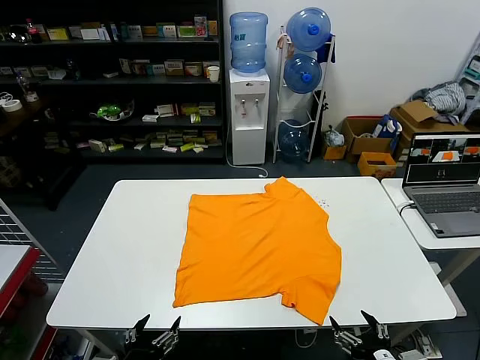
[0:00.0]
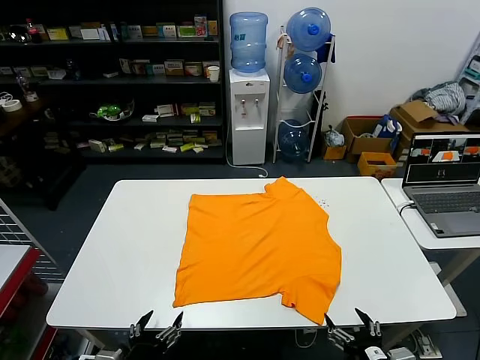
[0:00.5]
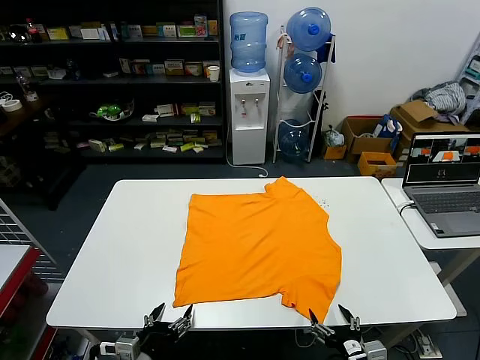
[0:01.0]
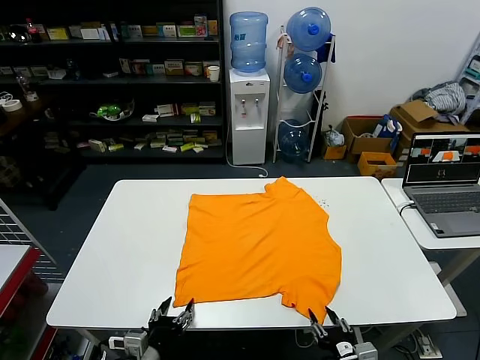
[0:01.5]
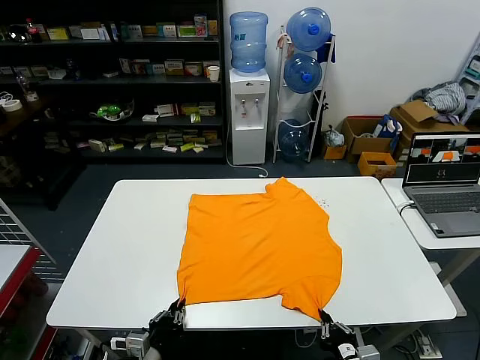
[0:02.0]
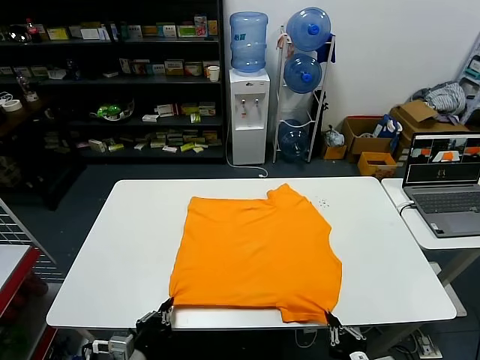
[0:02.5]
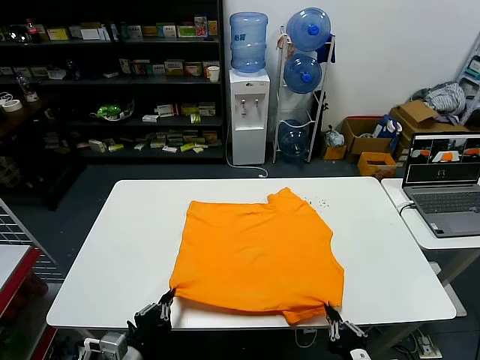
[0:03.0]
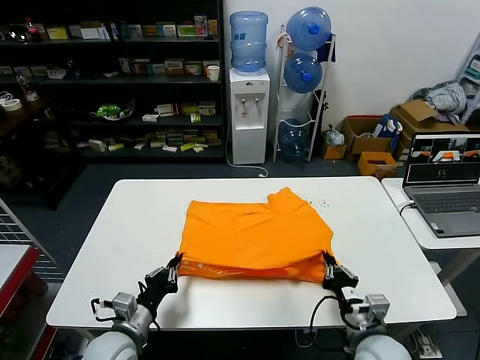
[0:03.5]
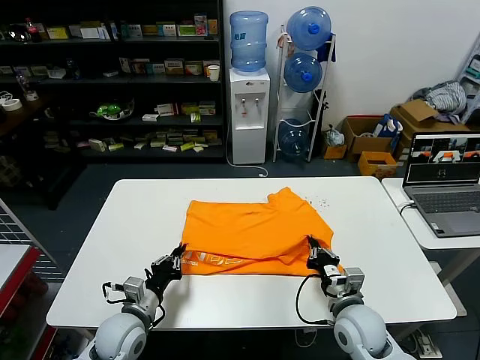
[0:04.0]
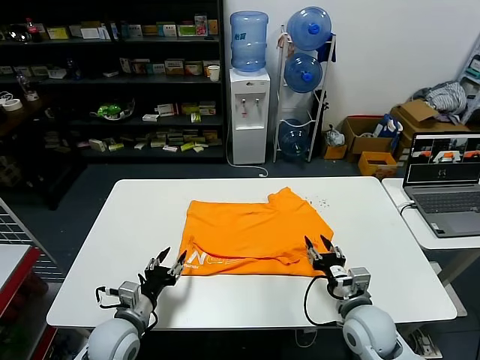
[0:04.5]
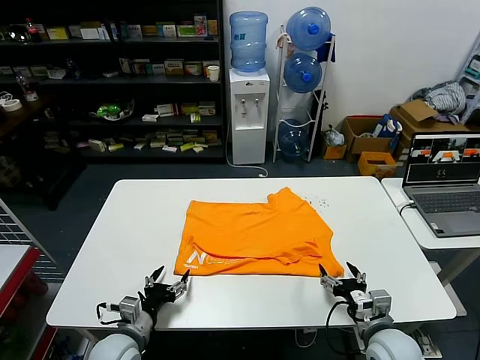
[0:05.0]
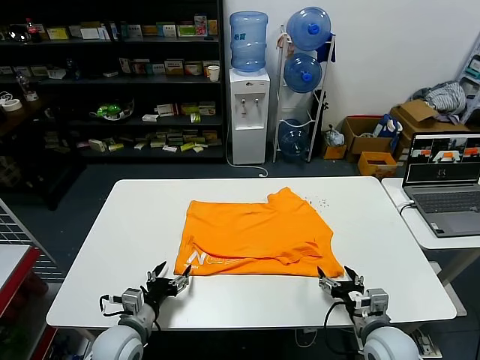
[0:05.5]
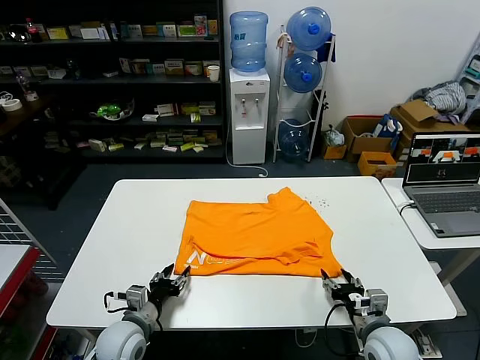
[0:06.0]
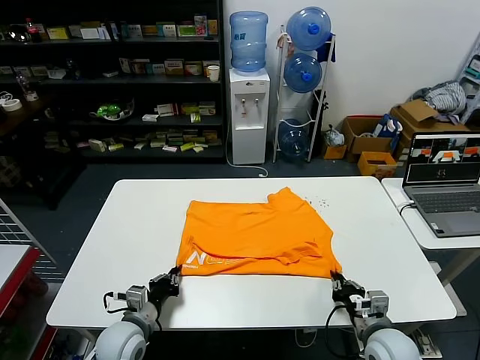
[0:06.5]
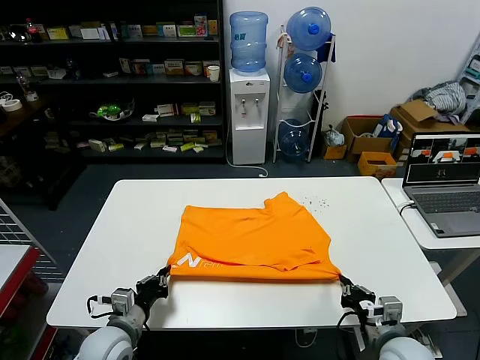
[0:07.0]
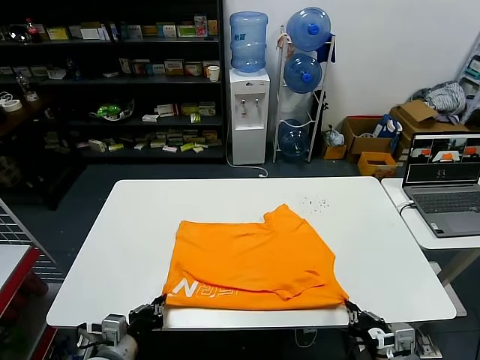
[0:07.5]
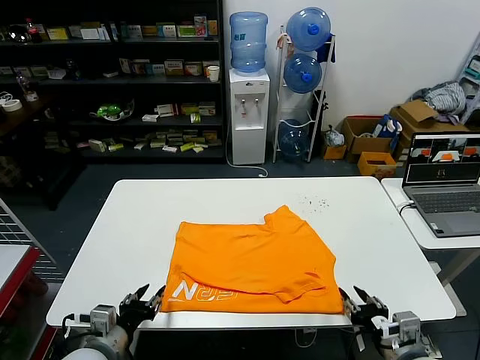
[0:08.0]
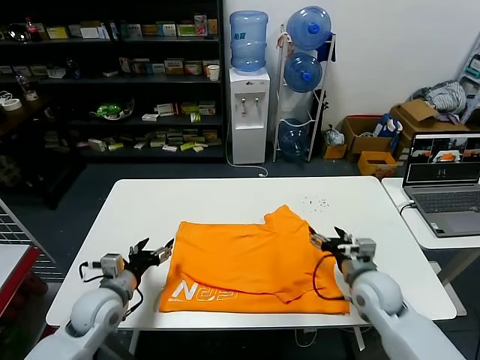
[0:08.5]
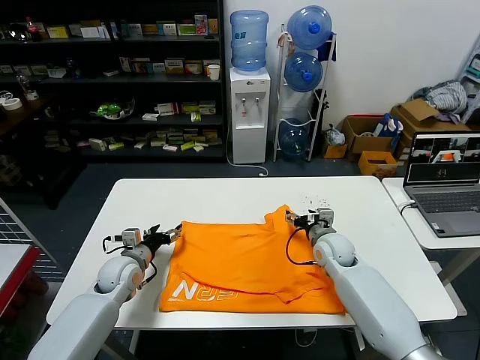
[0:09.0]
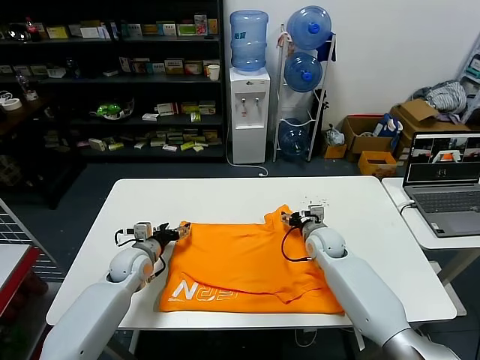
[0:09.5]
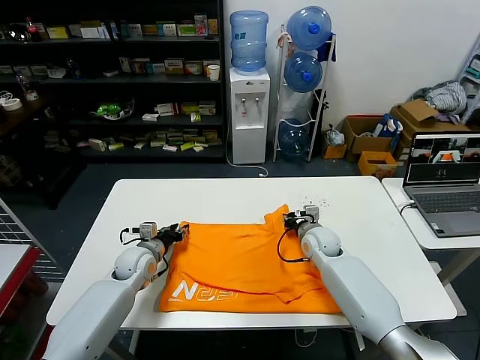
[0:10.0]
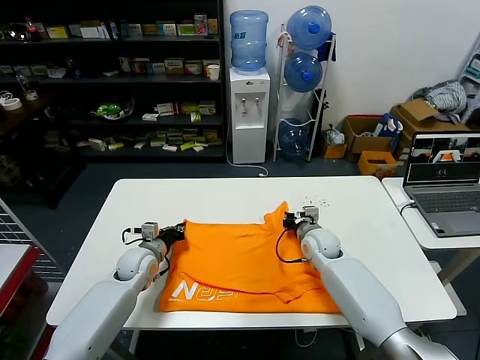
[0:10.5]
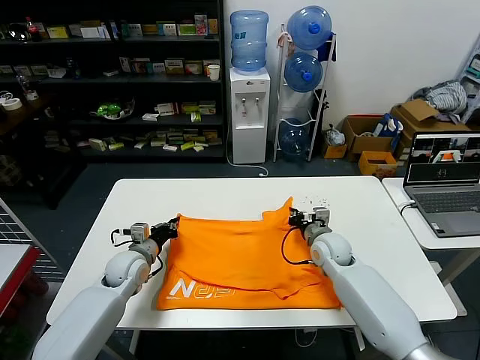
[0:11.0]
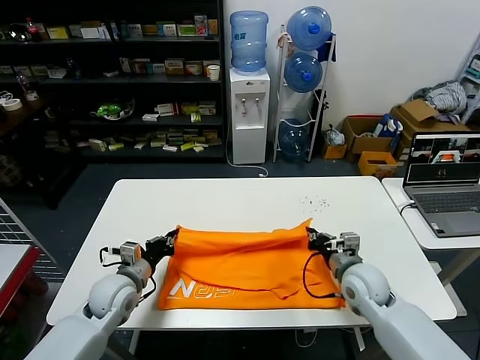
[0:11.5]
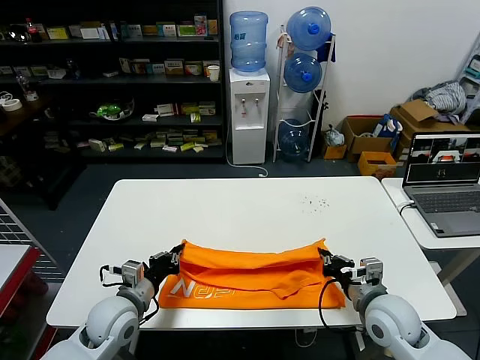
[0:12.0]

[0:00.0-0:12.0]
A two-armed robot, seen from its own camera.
Task of the whole recording: fold and organize the clothes.
Step, 0:00.0 to 0:02.0: use both grippers simultaneously to clamp the lower edge of the clothing fabric.
Step, 0:02.5 to 0:04.0: use both grippers to drag the lower edge of the fabric forward and fold it over the upper edge.
Step, 0:04.5 to 0:07.5: Drag the clothes downward with both gripper.
Step, 0:08.0 to 0:10.0: use both grippers simultaneously to clamp the upper edge of the clothing fabric.
0:02.0 to 0:04.0: The grippers both shift forward by approximately 15 cm.
0:04.0 to 0:06.0: The left gripper opens, while the right gripper heads to the right, covering about 5 cm, and opens.
0:06.0 to 0:08.0: The grippers both shift upward and backward by about 10 cm. The right gripper closes, then reopens, while the left gripper closes, then opens again.
0:08.0 to 0:10.0: Both grippers move forward, some 30 cm. The right gripper opens, then closes again, while the left gripper opens and closes again.
0:10.0 to 0:12.0: The grippers both shift backward by approximately 20 cm. The left gripper closes its fingers.

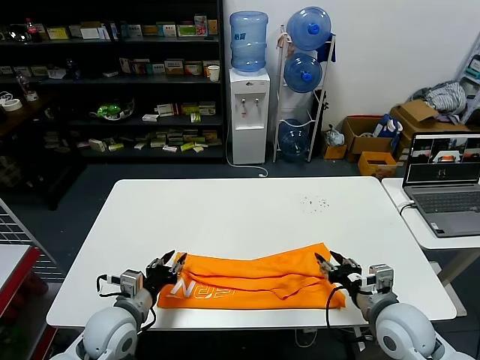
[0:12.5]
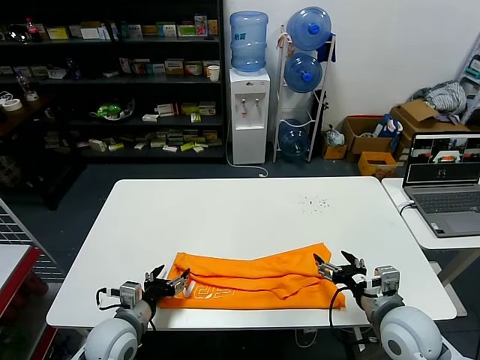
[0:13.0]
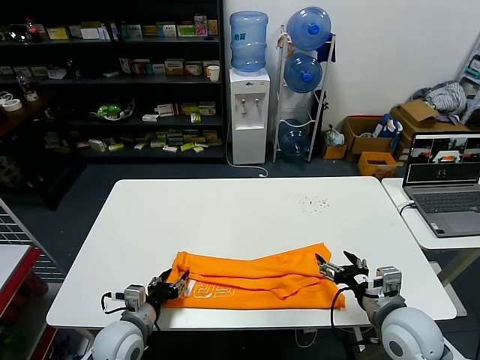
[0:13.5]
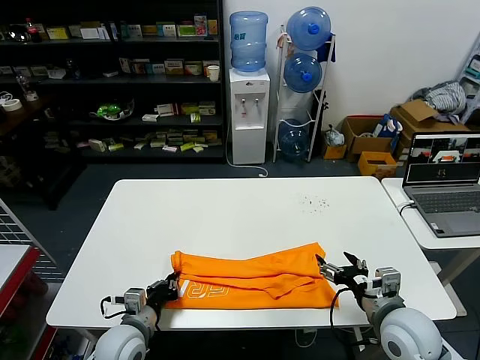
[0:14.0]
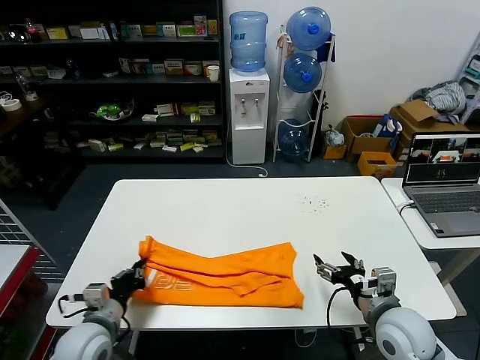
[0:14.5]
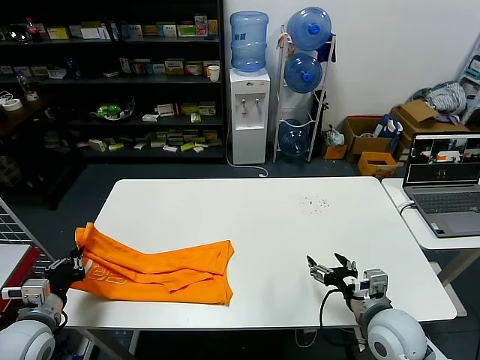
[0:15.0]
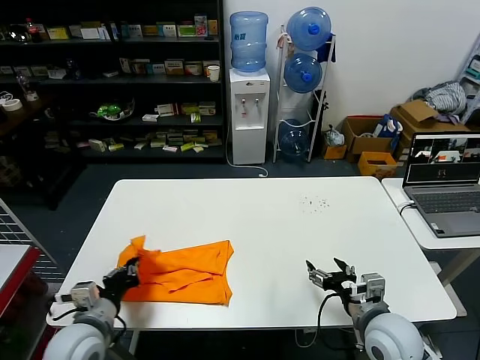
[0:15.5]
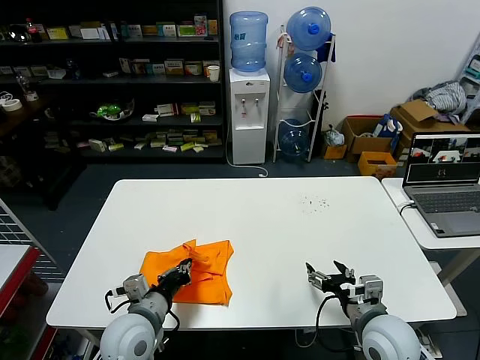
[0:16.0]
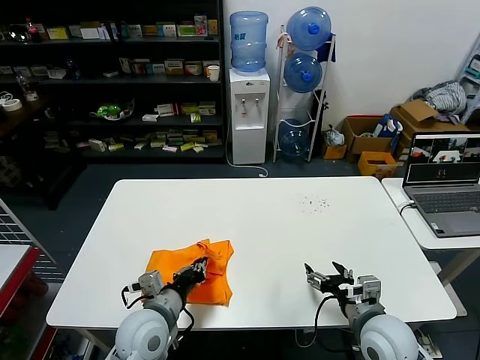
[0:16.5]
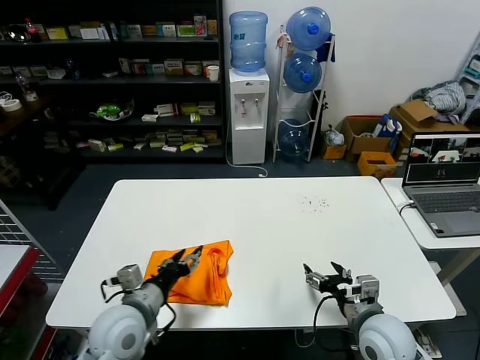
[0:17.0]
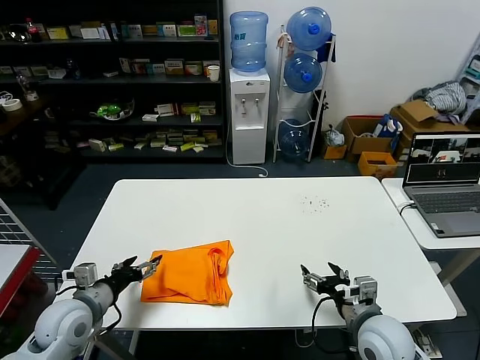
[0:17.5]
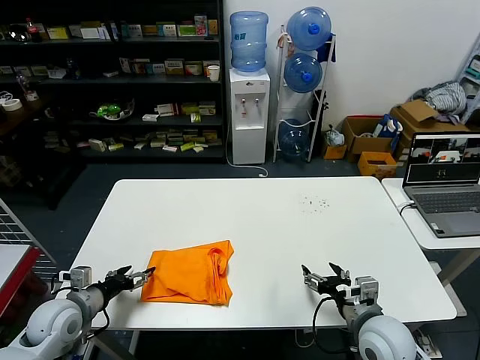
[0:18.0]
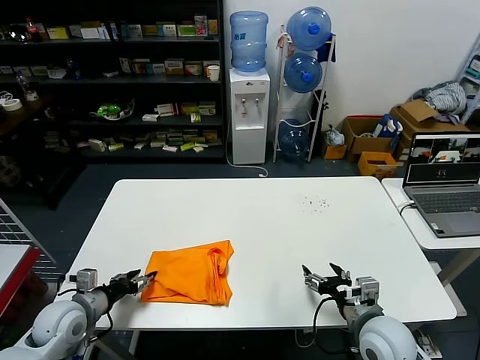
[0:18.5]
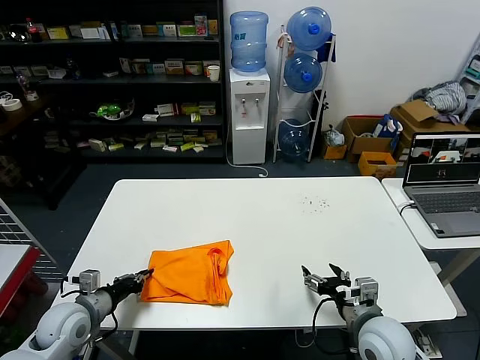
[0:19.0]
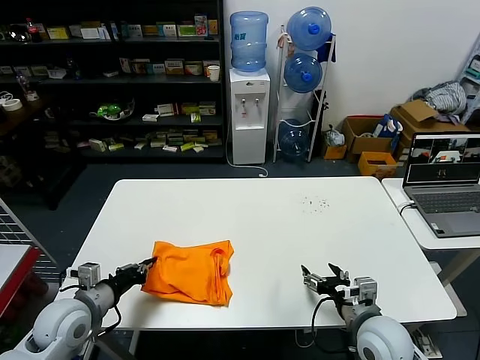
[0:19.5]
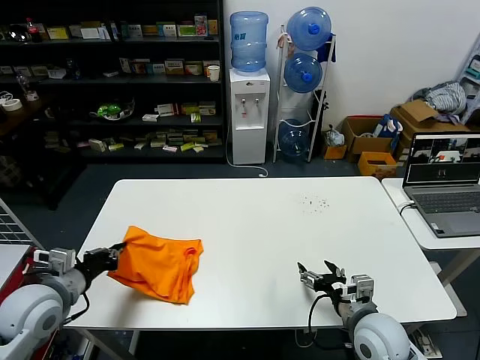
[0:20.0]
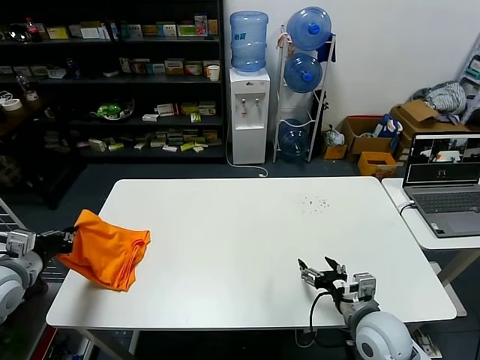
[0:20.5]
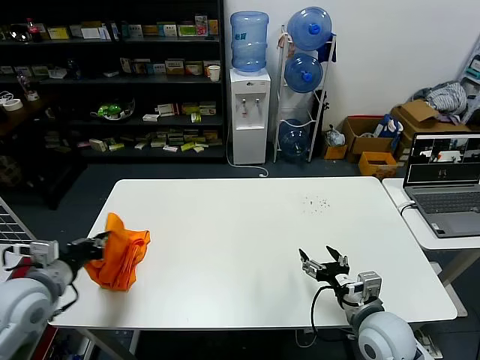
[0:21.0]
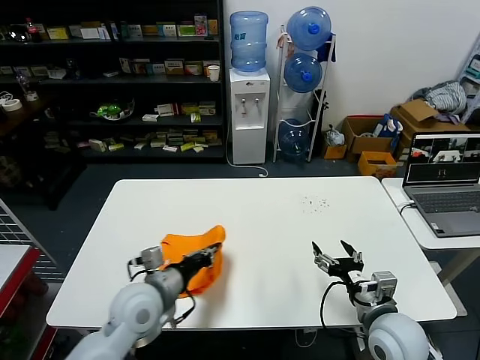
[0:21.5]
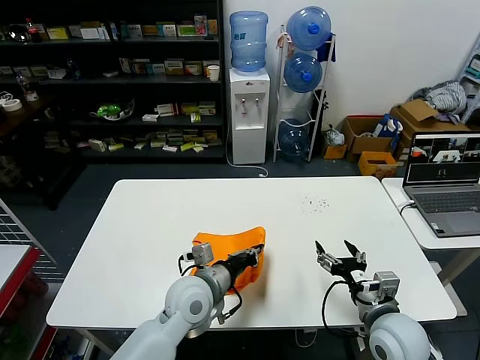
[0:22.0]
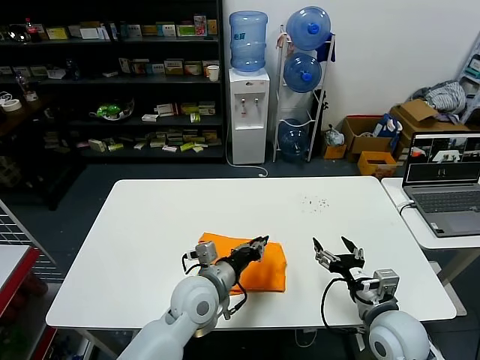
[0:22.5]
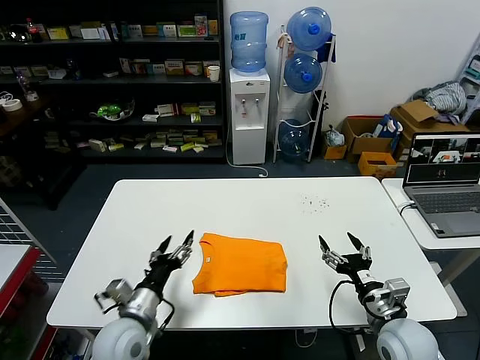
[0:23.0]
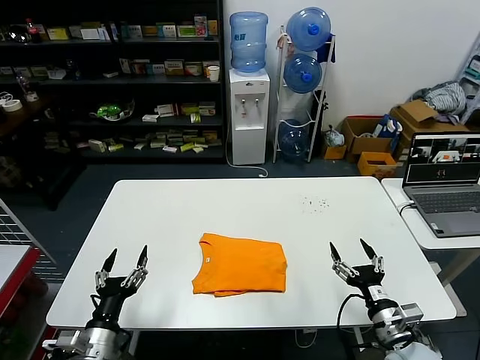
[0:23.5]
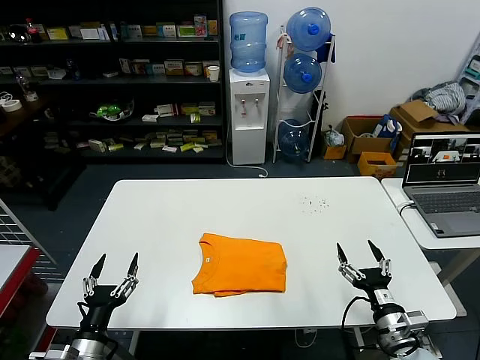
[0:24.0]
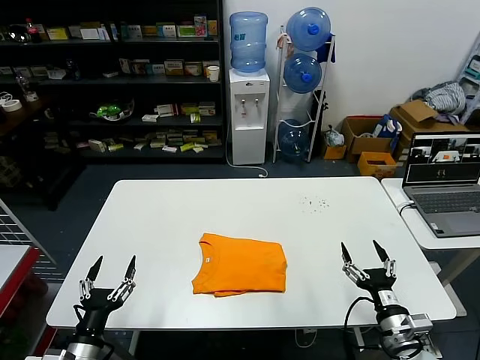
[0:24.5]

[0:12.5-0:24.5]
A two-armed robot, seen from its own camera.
Task of the whole recording: fold and organize the clothes.
Step, 0:12.5 to 0:14.0: use the left gripper to clamp the left edge of the fabric.
Step, 0:14.5 to 0:16.5: use the left gripper to drag the left edge of the fabric to the left and folds it over the right edge.
Step, 0:17.0 to 0:22.5: Flip the folded clothes over with left gripper.
0:12.5 to 0:14.5: The right gripper opens up. Meanwhile the left gripper closes up.
0:14.5 to 0:16.5: The left gripper shifts roughly 10 cm to the right.
0:16.5 to 0:18.5: The left gripper is displaced to the left by about 20 cm, and opens.
0:18.5 to 0:20.5: The left gripper travels upward and to the left by some 15 cm, and closes.
0:20.5 to 0:22.5: The left gripper is displaced to the right by roughly 35 cm.
0:22.5 to 0:24.5: The right gripper travels downward and backward by some 10 cm, while the left gripper is displaced to the left and backward by some 30 cm, and opens up.
